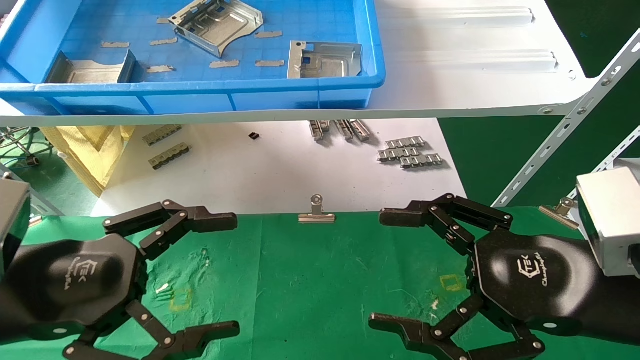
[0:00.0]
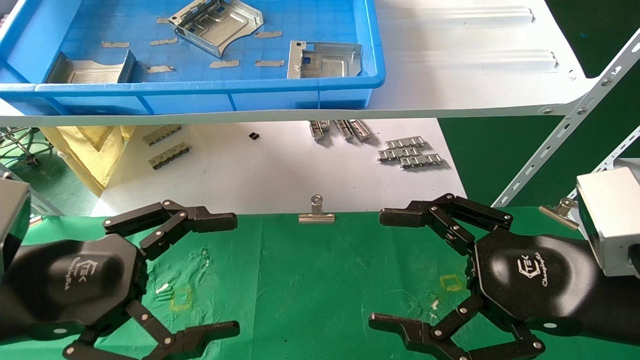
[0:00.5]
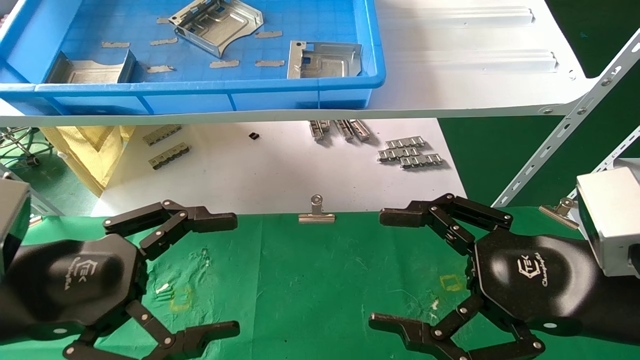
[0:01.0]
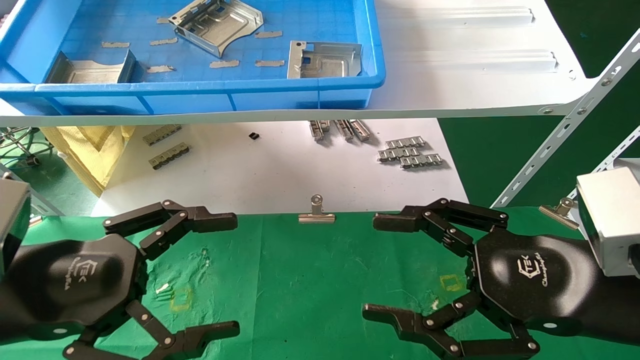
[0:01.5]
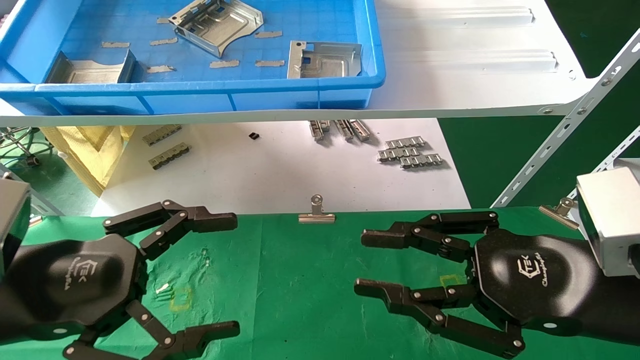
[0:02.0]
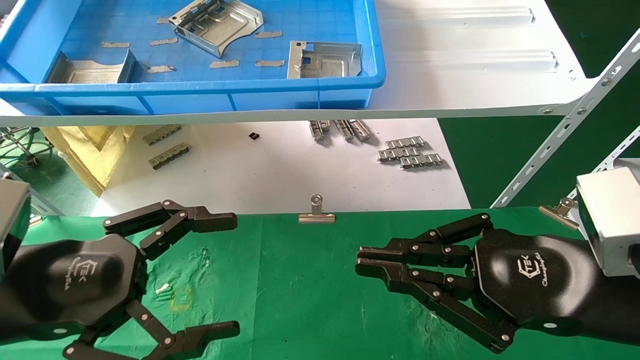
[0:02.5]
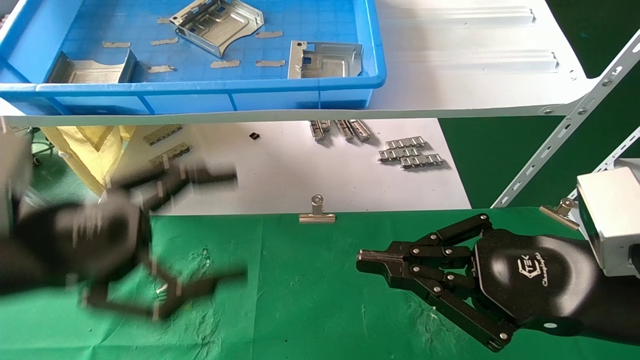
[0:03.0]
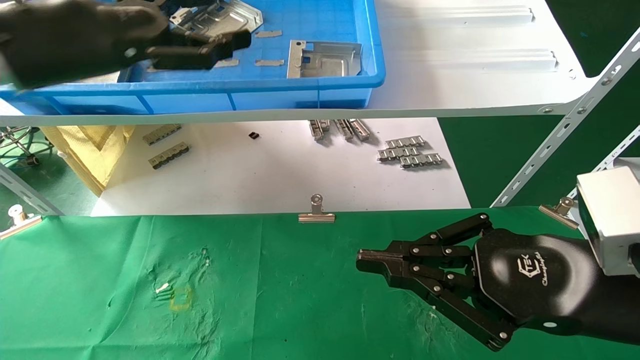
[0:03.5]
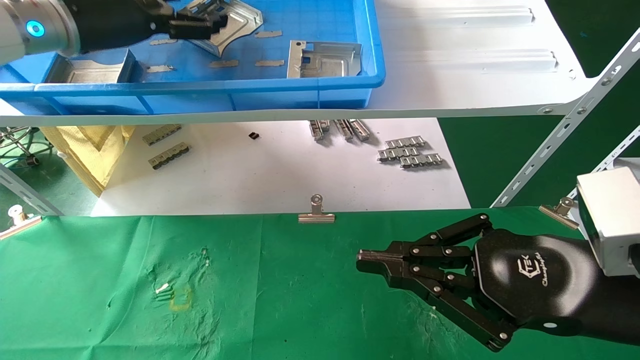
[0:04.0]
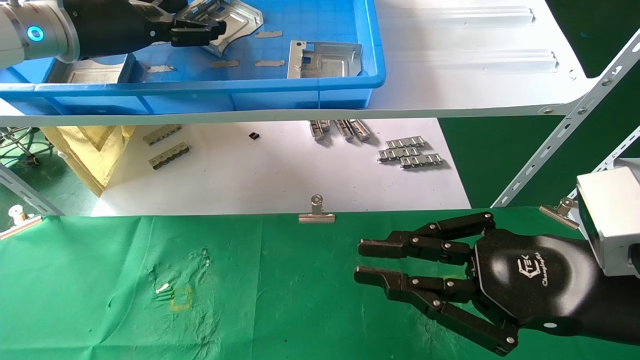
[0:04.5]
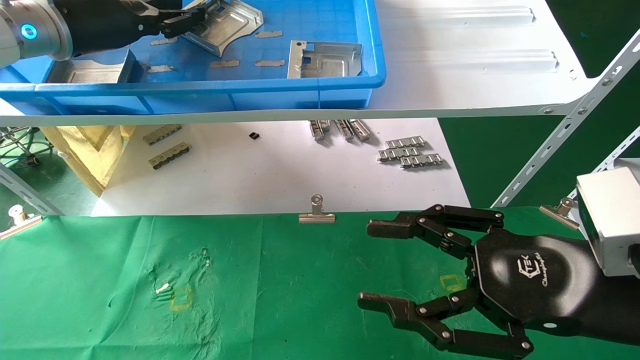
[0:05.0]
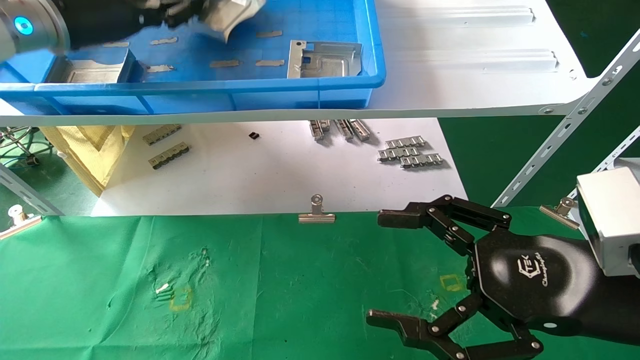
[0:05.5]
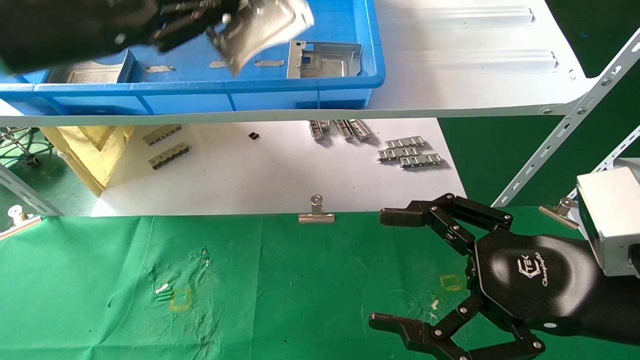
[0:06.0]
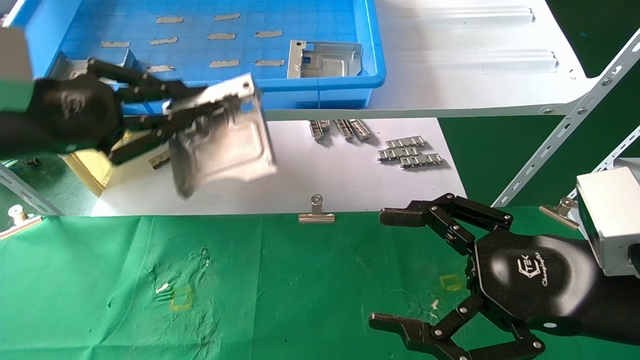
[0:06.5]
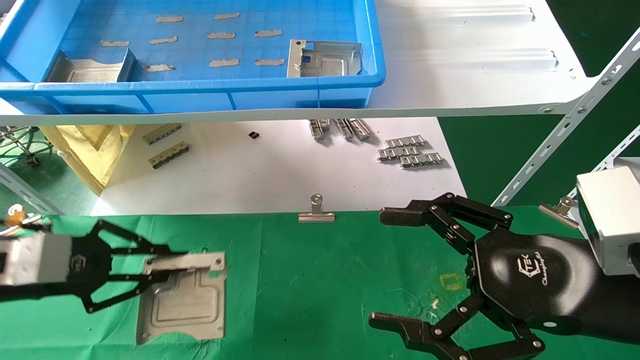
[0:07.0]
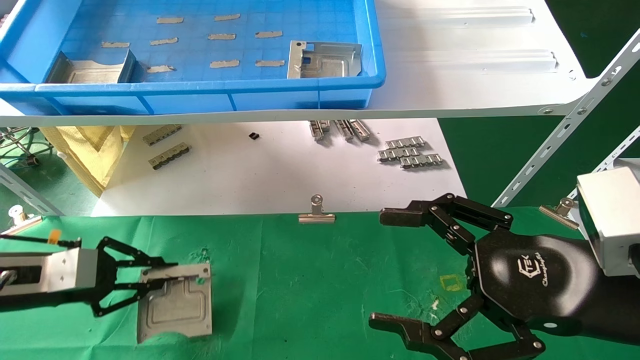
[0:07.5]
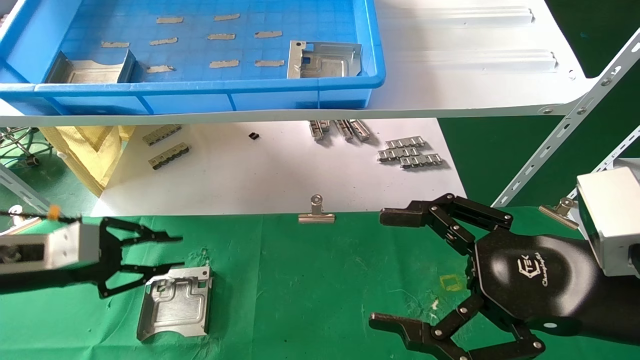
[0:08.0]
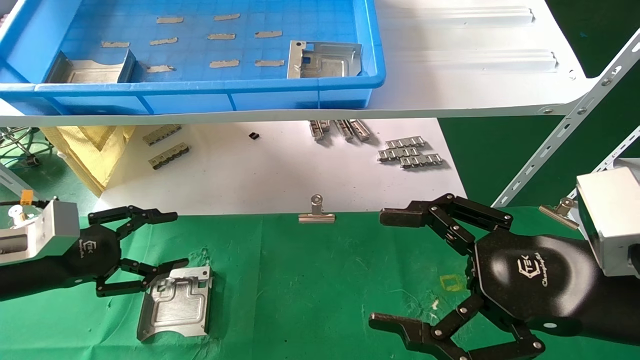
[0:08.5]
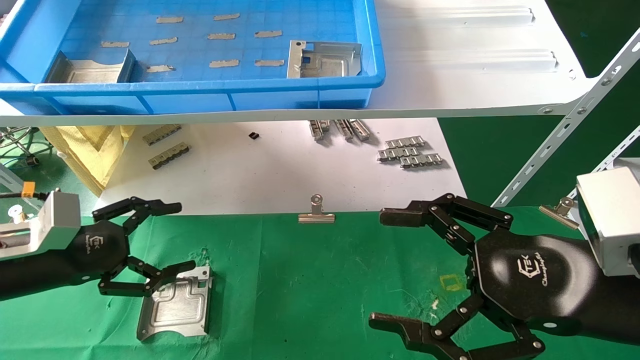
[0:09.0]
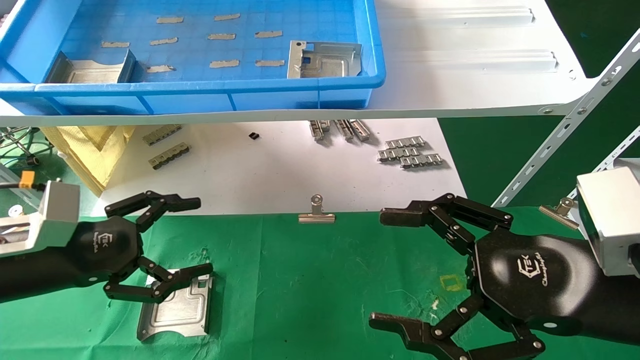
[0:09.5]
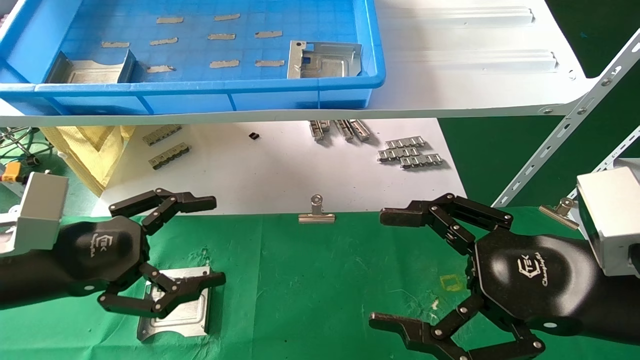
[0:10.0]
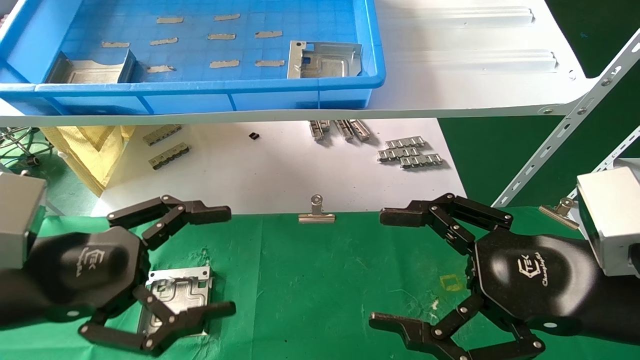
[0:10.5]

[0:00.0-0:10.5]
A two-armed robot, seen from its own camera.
Task of the whole recording: use the mechanical arm to pick up the parts and place them on the table.
Step, 0:03.0 to 0:05.0: Pick up the hard drive bracket from the feeding area.
Step, 0:05.5 to 0:08.5: Place the hard drive bracket into the box.
0:00.0 to 0:02.0: The right gripper closes up.
0:02.0 to 0:04.0: The right gripper closes its fingers, while the left gripper shifts approximately 30 cm forward and upward.
0:04.0 to 0:06.5: The right gripper opens its fingers. Meanwhile the left gripper goes about 15 cm backward, downward and to the left, and closes.
0:06.5 to 0:08.5: The left gripper goes roughly 15 cm downward, and opens its fingers.
0:08.5 to 0:10.5: The left gripper shifts some 15 cm to the right, backward and upward, and opens up.

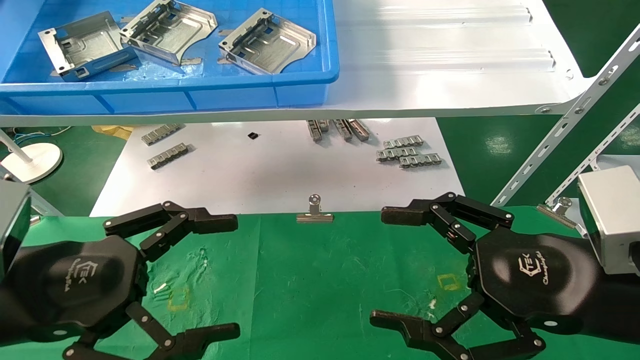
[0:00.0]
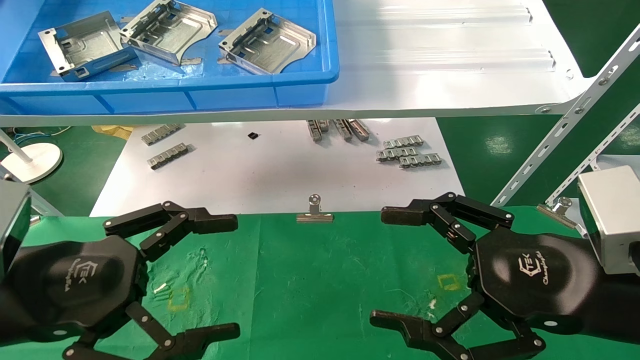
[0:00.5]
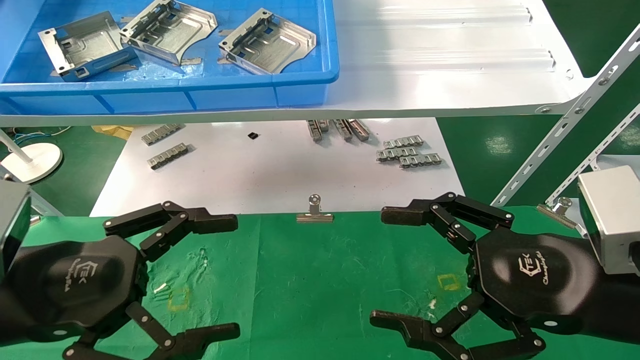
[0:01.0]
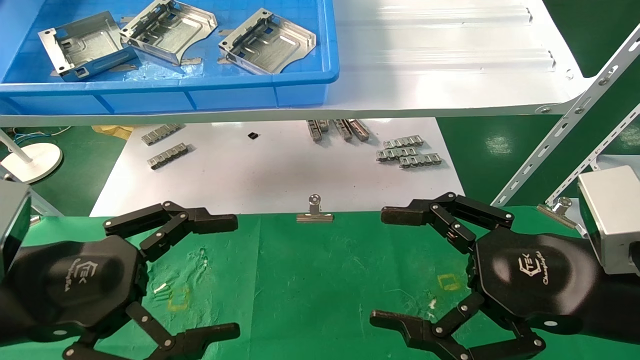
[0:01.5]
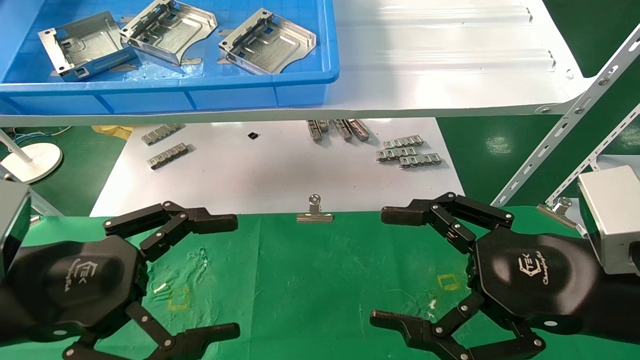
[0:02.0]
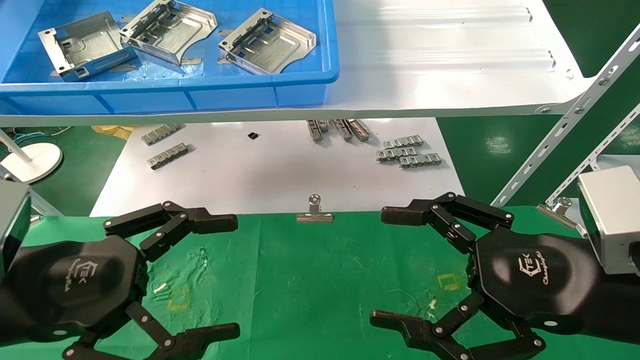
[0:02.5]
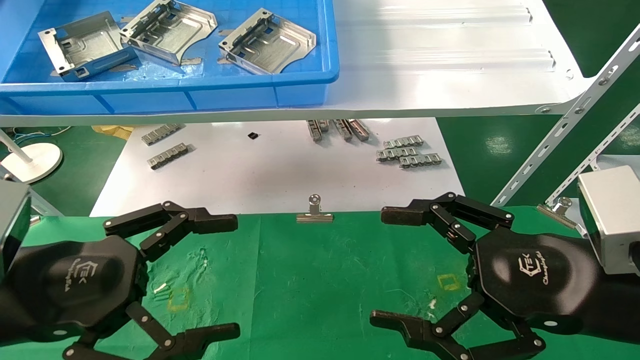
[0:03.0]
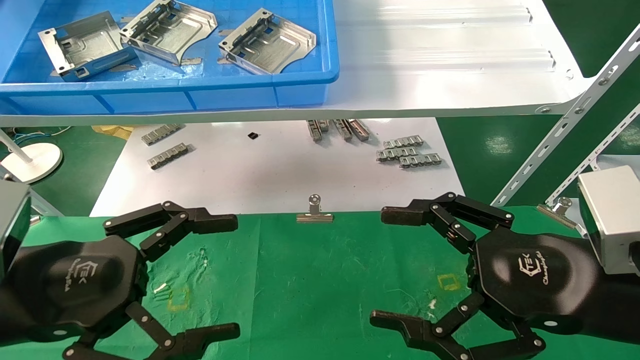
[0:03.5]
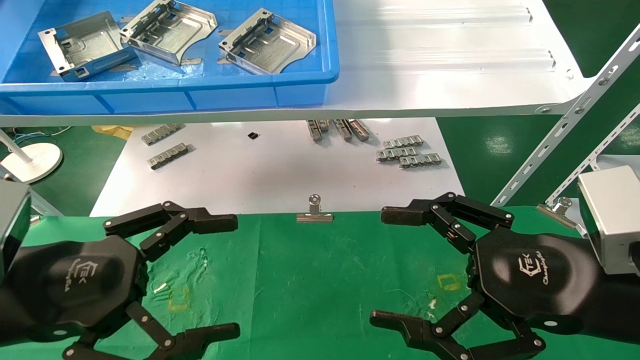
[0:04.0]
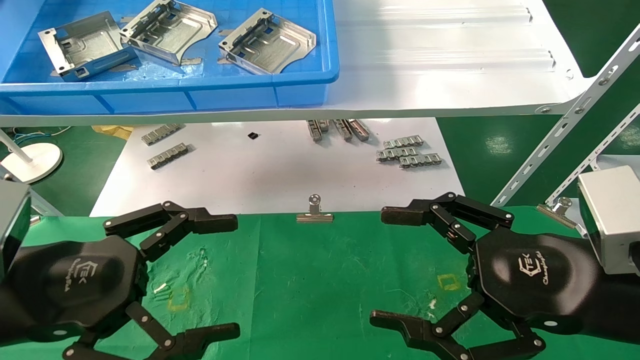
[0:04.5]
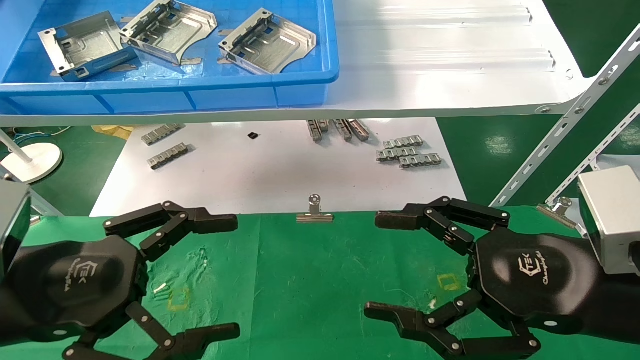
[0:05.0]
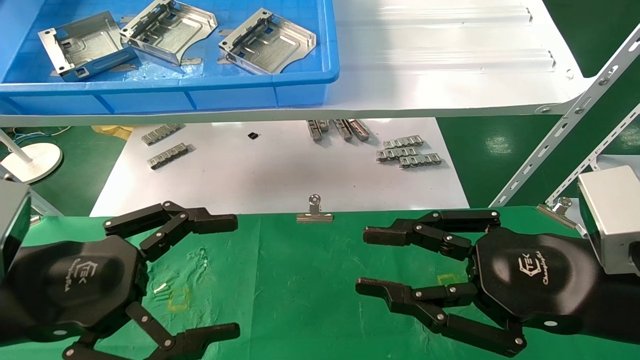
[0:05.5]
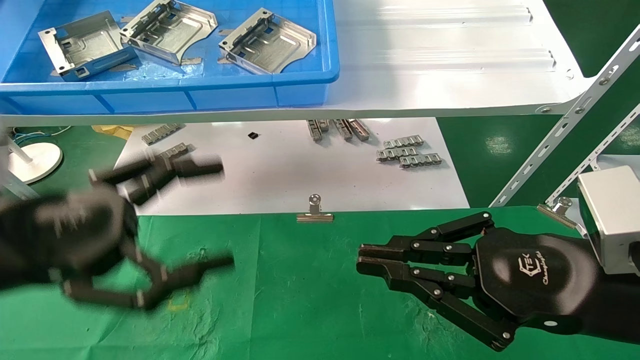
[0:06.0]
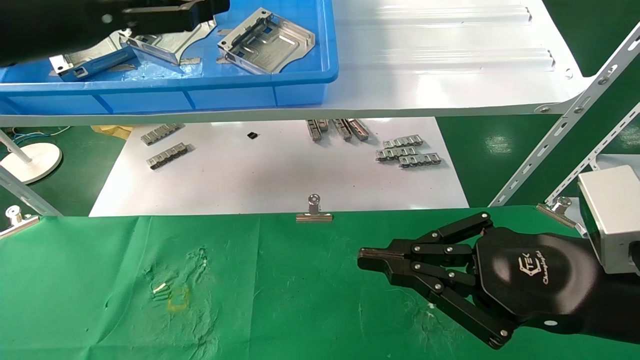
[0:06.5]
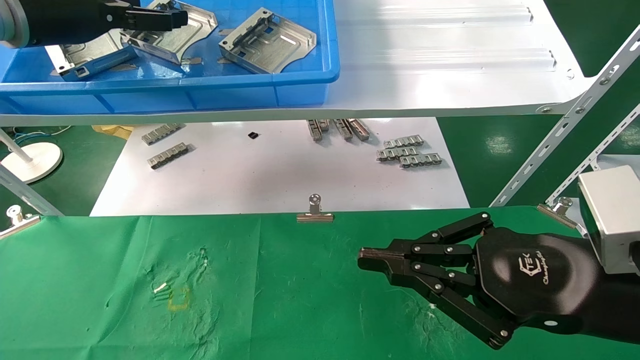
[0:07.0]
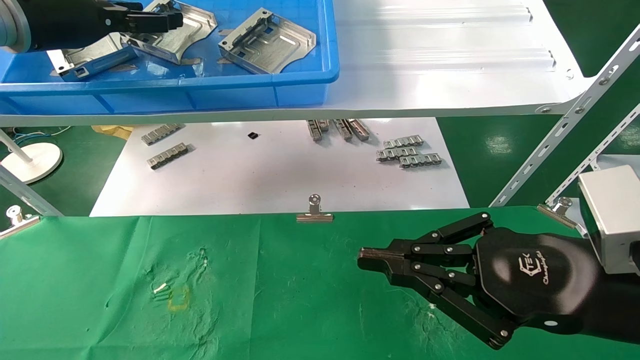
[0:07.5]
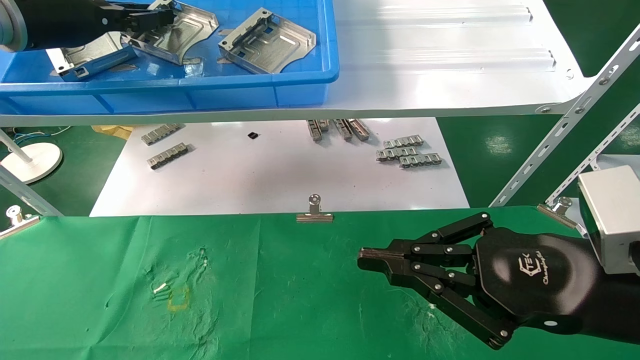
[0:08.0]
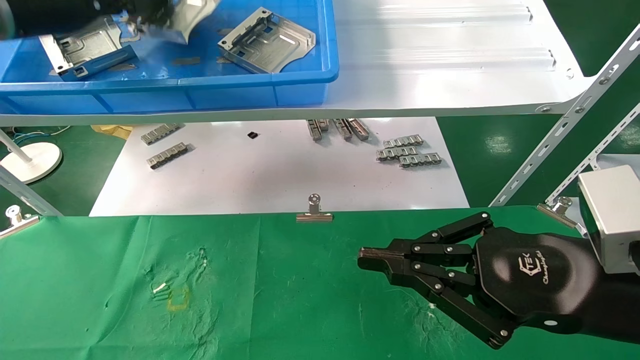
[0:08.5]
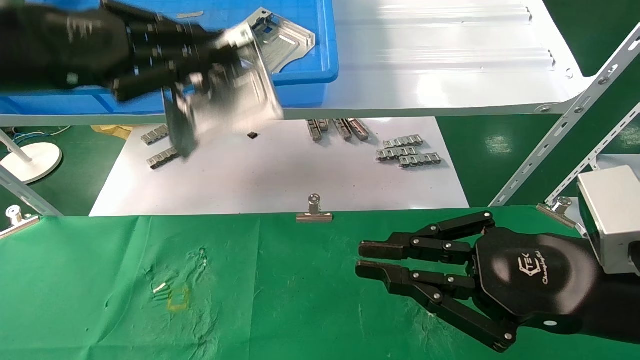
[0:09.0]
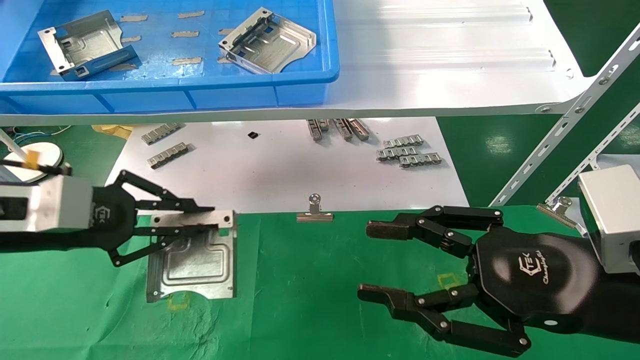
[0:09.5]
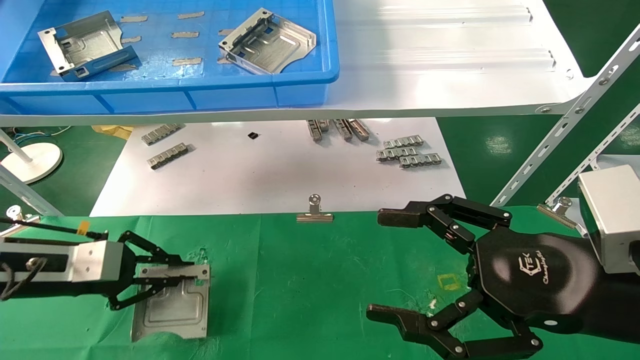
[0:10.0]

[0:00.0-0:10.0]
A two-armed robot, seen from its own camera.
Task of the whole recording: use the mechanical arm to pick up the parts and place them on the table.
Step, 0:06.5 to 0:08.0: Pick up the hard drive bracket from the feeding area.
0:00.0 to 0:04.0: Both grippers stay about where they are.
0:04.0 to 0:06.0: The left gripper travels upward by about 5 cm. The right gripper closes its fingers.
0:06.0 to 0:08.0: The left gripper travels forward and upward by approximately 25 cm, and closes.
0:08.0 to 0:10.0: The left gripper goes some 25 cm downward, and closes its fingers; the right gripper opens up.
